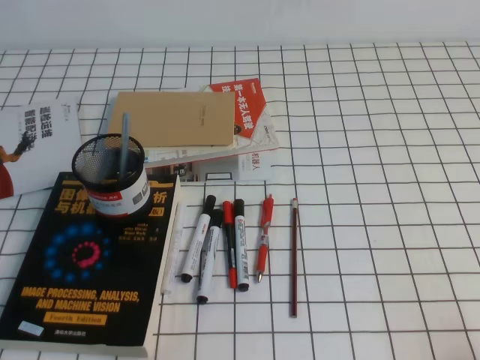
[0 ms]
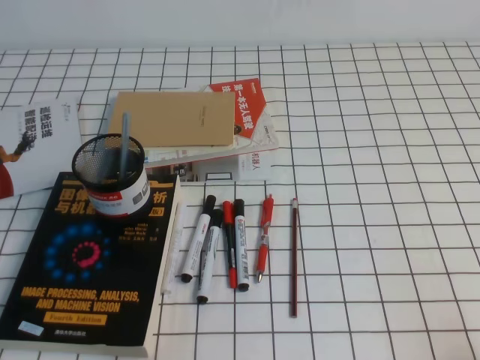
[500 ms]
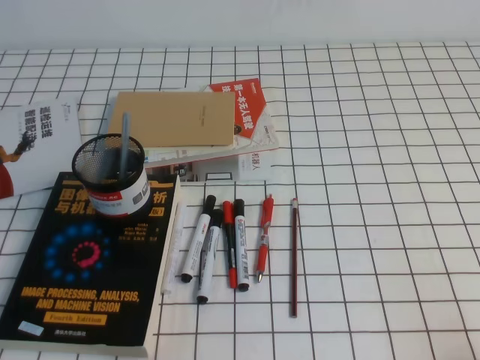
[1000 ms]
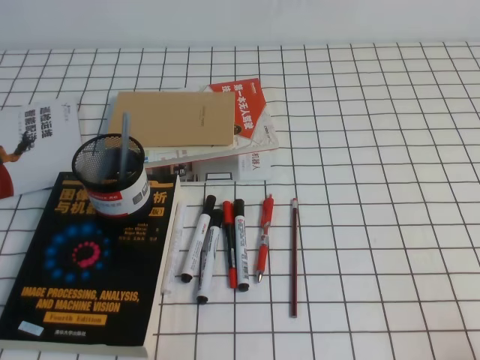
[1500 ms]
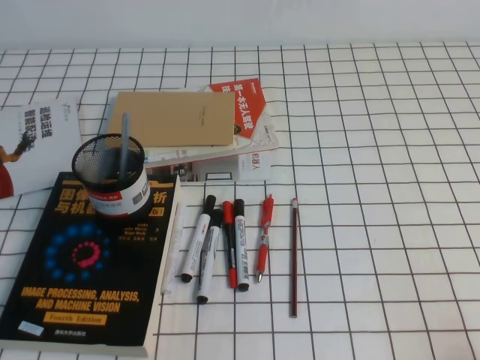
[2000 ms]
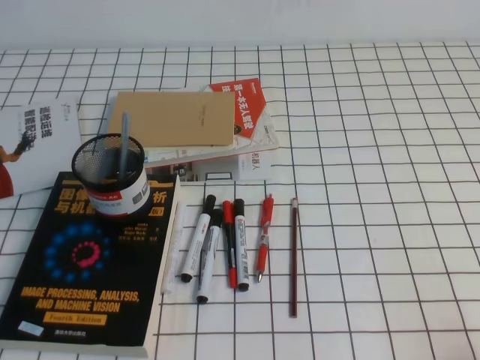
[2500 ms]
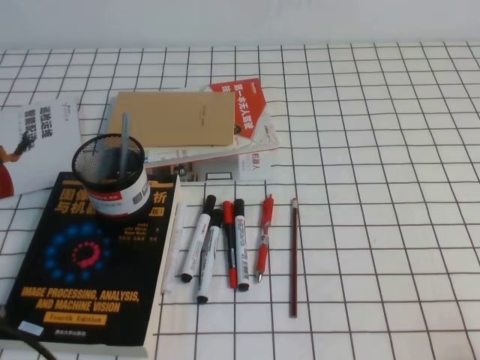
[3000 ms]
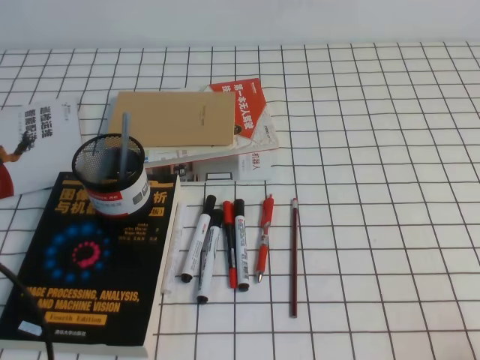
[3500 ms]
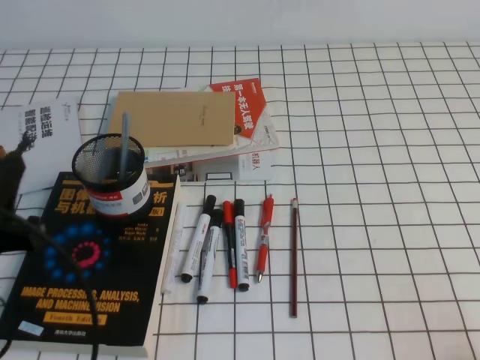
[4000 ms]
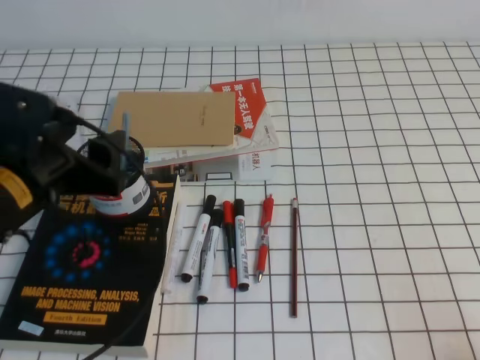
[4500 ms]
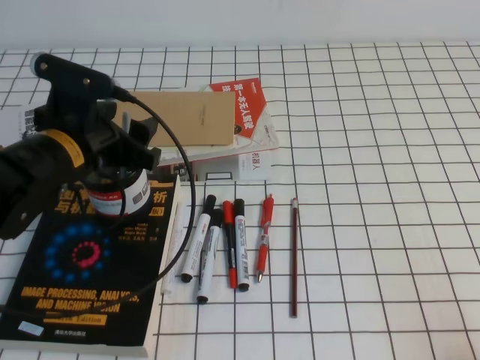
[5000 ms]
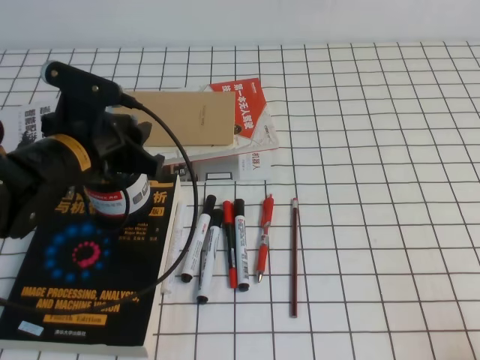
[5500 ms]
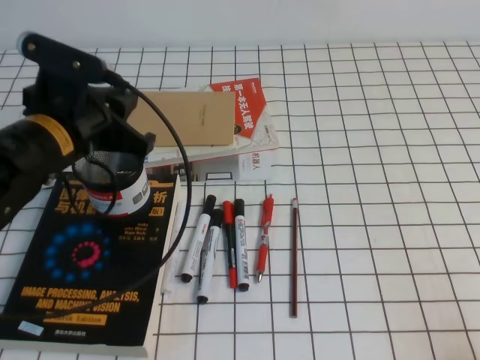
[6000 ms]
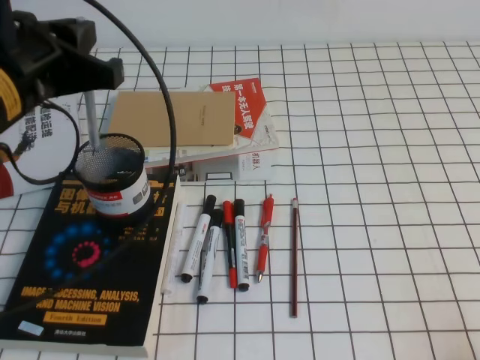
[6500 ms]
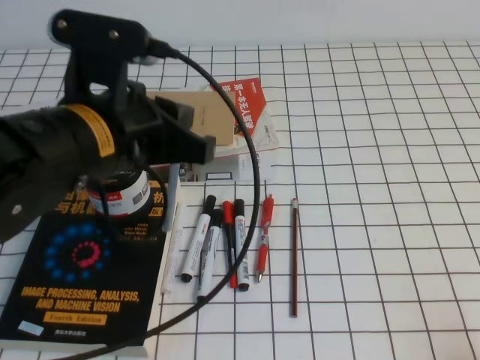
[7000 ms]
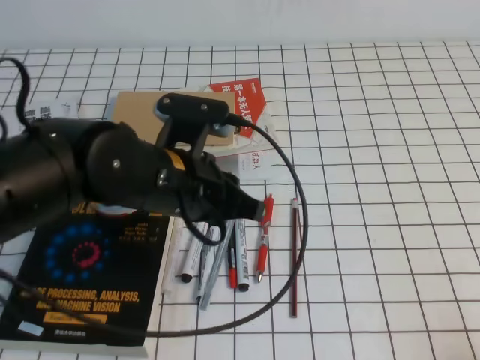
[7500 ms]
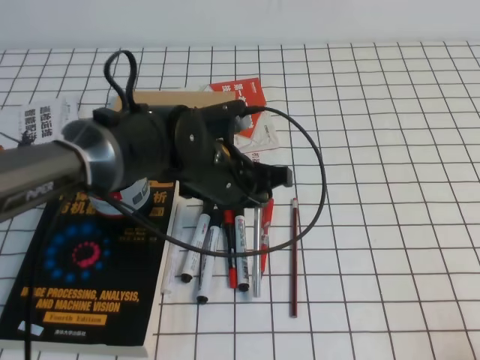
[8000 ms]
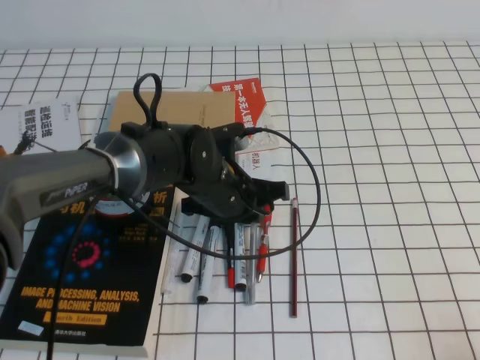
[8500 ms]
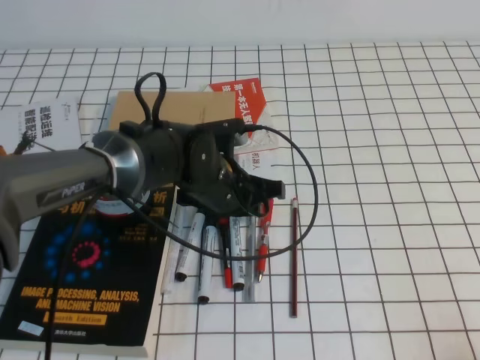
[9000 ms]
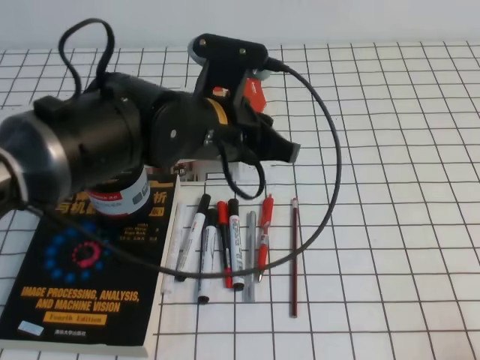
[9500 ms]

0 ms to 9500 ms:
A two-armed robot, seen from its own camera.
2000 ms to 4000 ms: The left gripper travels upward and forward by about 15 cm, and opens.
4000 ms to 5500 ms: The left gripper travels forward and to the right by some 20 cm, and opens, then closes again.
5500 ms to 7500 ms: The left gripper heads to the right and backward, covering roughly 10 cm, reaches some 10 cm upward, then returns, and closes up.
7500 ms to 9500 ms: The left gripper goes downward and returns, some 10 cm each way.

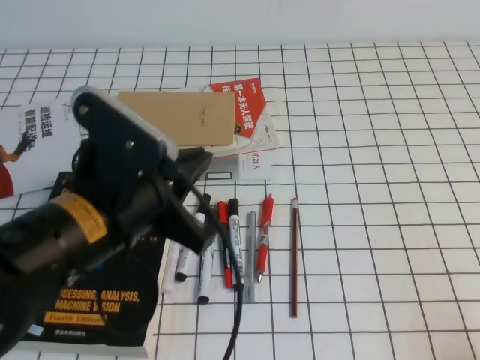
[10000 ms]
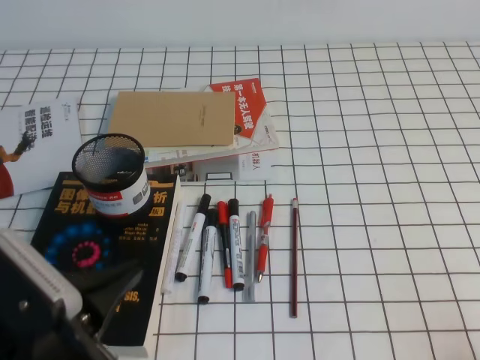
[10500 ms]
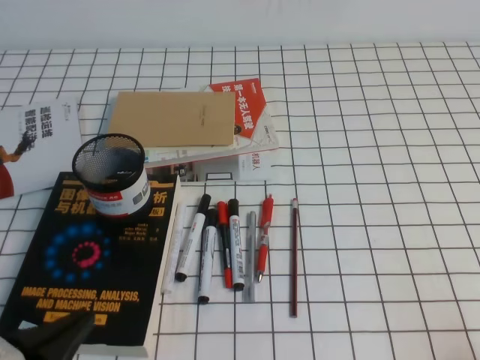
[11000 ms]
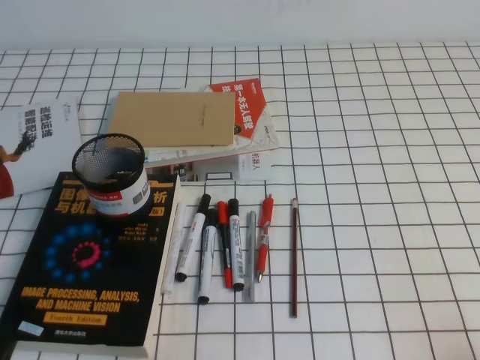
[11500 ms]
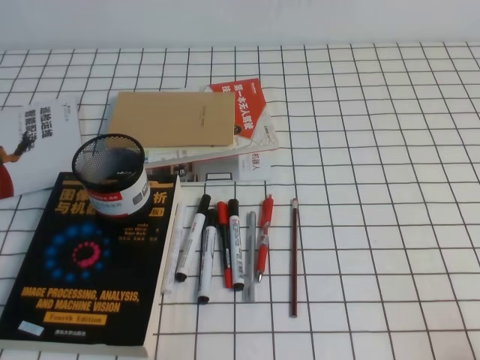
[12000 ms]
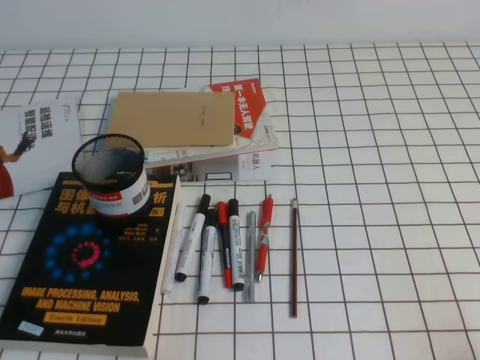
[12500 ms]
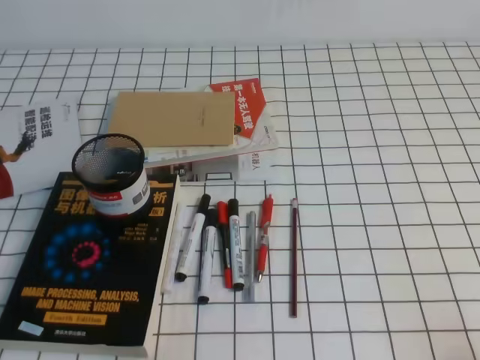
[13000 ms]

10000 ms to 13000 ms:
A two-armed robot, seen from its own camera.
Step, 10000 ms to 13000 ms: Pick up the pen from the pen holder.
10000 ms to 11500 ms: The left gripper is displaced to the left, backward and downward by roughly 25 cm.
